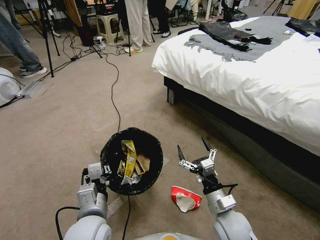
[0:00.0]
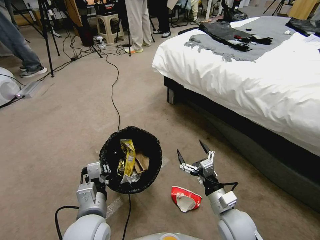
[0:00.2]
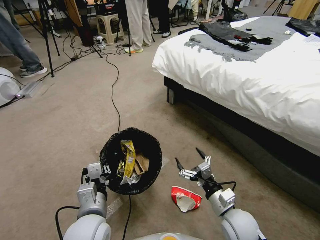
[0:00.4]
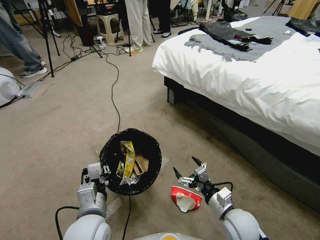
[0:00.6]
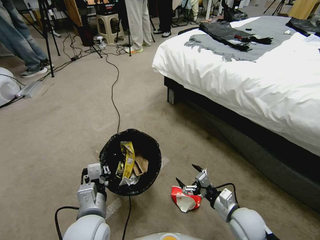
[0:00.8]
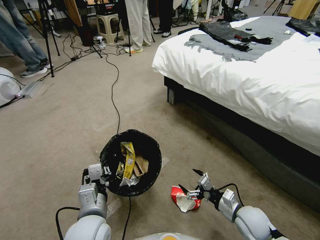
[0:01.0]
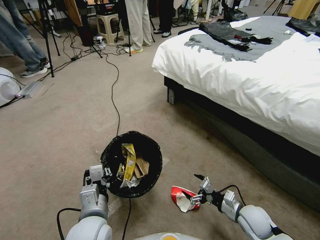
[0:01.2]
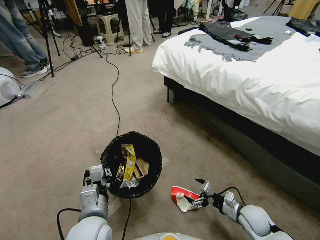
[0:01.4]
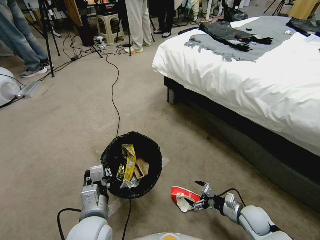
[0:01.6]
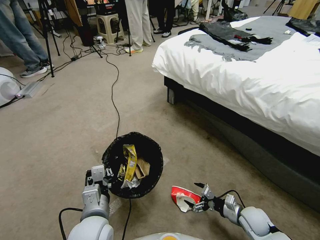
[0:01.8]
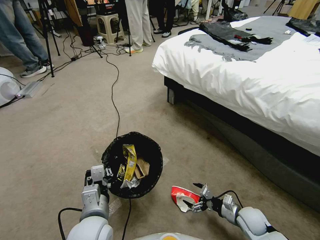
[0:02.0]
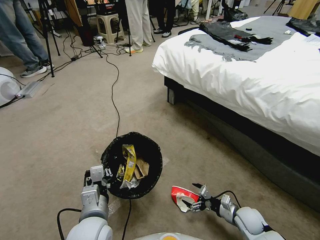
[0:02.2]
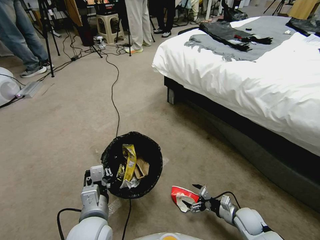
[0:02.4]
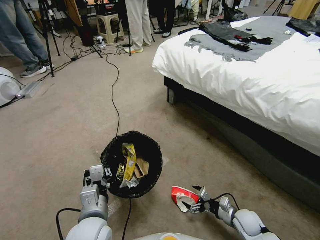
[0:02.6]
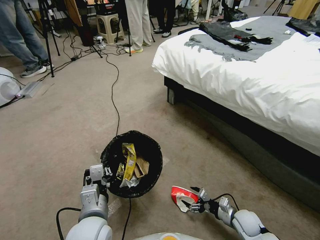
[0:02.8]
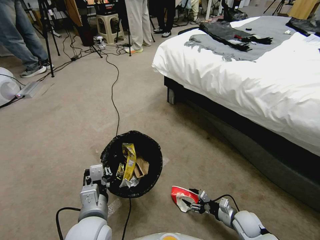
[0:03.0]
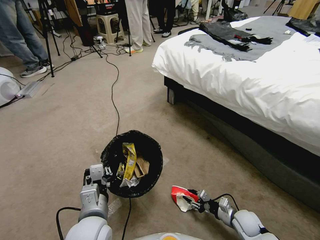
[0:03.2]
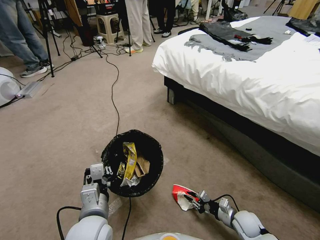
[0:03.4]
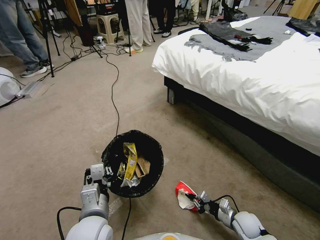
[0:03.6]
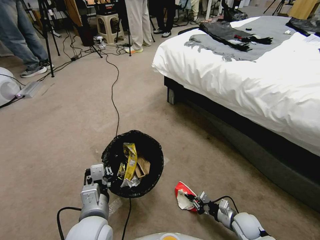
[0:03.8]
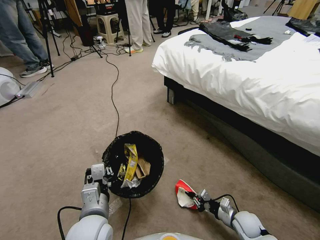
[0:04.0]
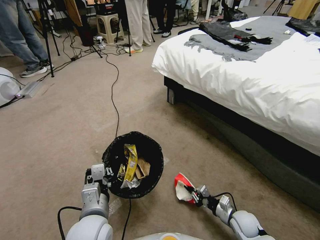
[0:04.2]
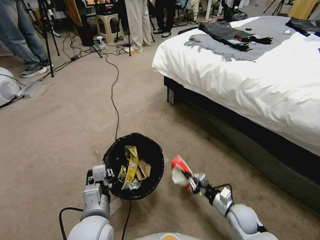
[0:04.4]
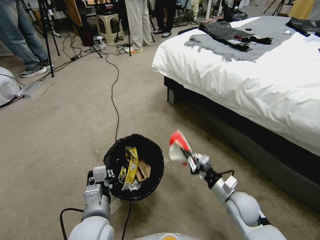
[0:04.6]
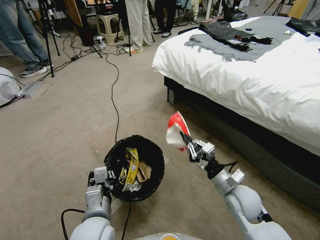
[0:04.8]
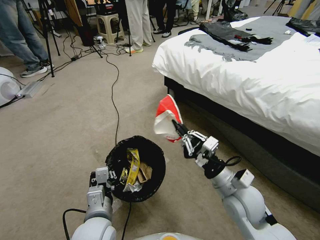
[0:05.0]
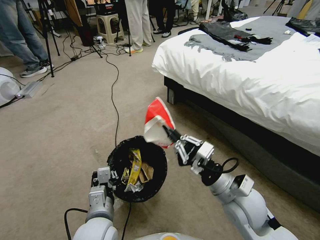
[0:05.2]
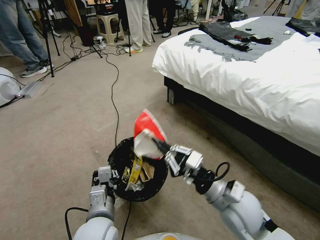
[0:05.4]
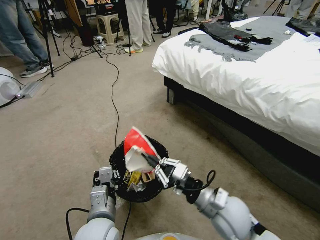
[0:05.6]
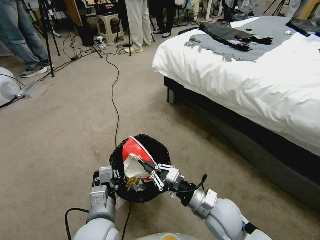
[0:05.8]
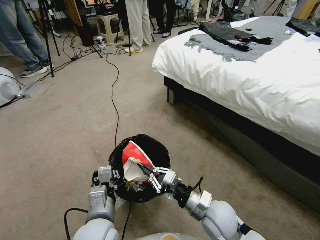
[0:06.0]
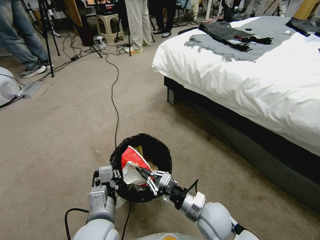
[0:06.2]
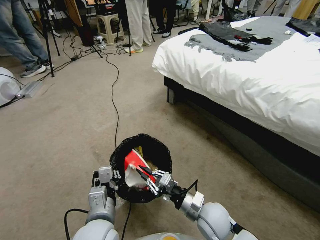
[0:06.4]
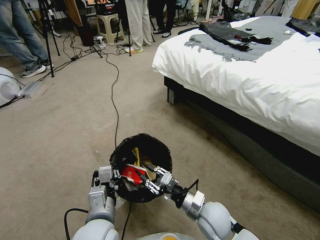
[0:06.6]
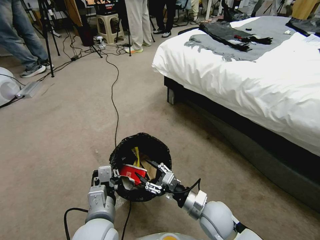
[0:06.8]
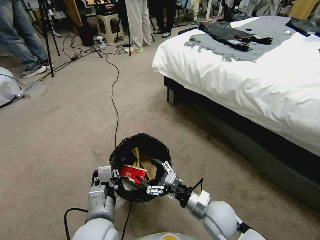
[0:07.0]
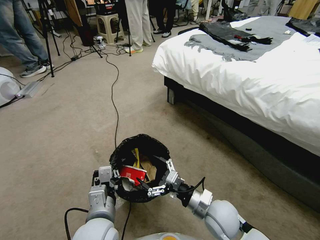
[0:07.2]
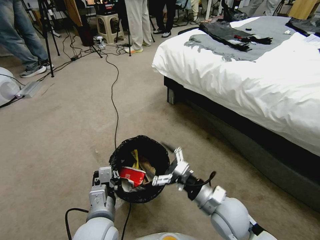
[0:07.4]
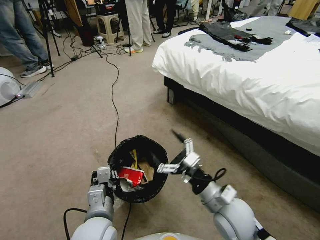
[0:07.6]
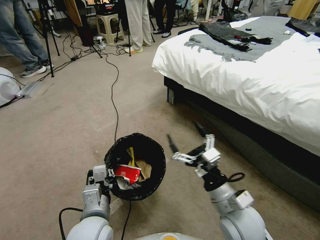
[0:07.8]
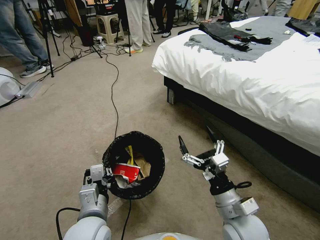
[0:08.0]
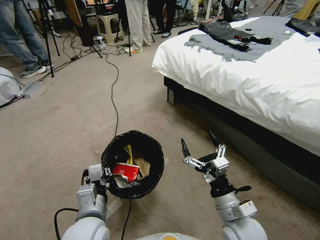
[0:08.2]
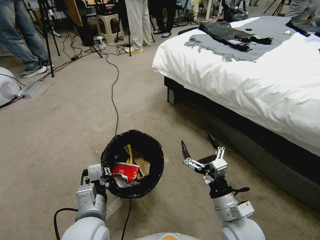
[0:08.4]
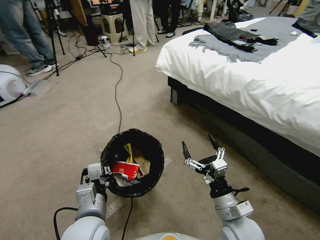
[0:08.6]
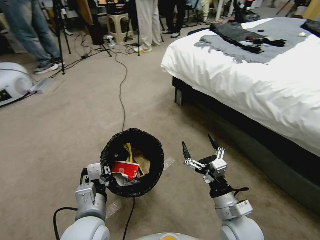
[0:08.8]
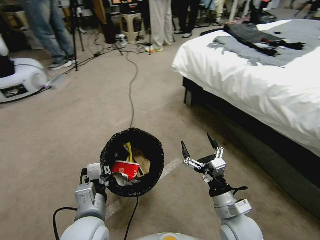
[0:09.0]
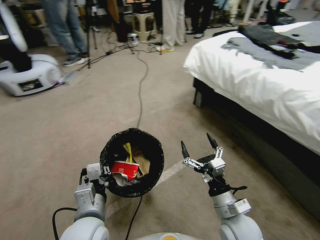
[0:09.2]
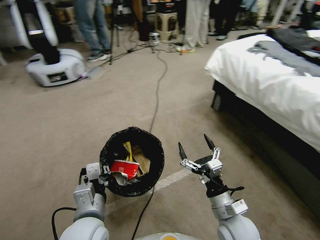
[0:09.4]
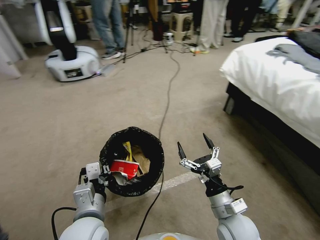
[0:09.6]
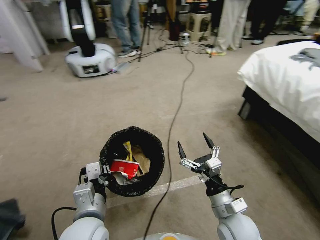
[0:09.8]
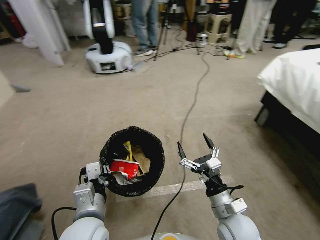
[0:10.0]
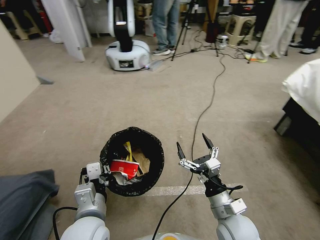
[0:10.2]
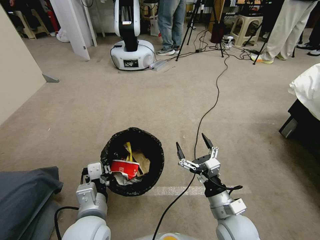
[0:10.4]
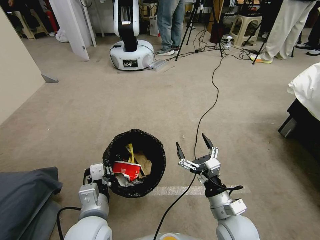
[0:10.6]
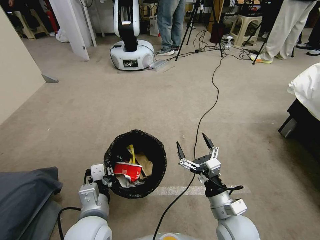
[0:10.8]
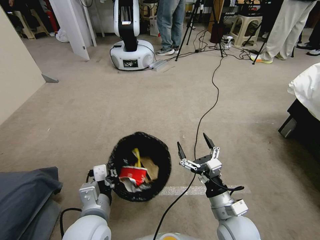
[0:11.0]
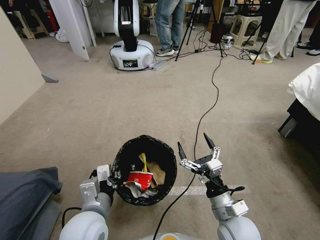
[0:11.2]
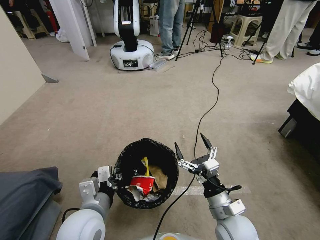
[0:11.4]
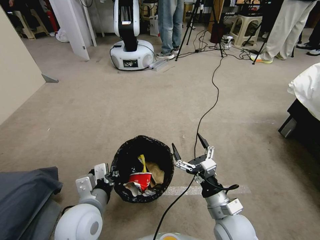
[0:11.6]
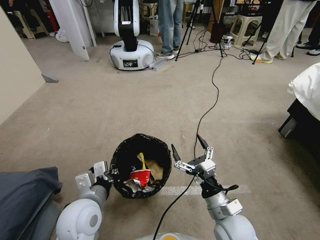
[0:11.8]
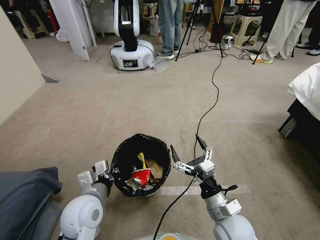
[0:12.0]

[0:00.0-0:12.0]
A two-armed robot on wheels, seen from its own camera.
Task of the whole recording: Pick up the trash bin, then pick up the garbage from the floor and place it into the trash bin.
0:00.0 to 0:01.6: The right gripper moves to the right and downward, some 20 cm.
0:01.6 to 0:03.0: The right gripper goes some 5 cm downward, and closes.
0:03.0 to 0:04.4: The right gripper shifts some 5 cm upward, and closes up.
0:04.4 to 0:06.0: The right gripper moves upward and to the left, about 20 cm.
0:06.0 to 0:07.6: The right gripper heads upward, covering about 5 cm, and opens its fingers.
0:07.6 to 0:09.0: The right gripper shifts by some 5 cm.
0:10.4 to 0:12.0: The left gripper ends up about 5 cm from where it was.

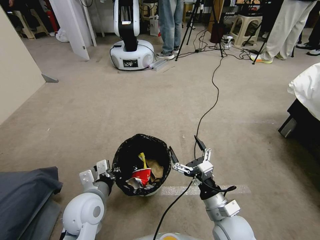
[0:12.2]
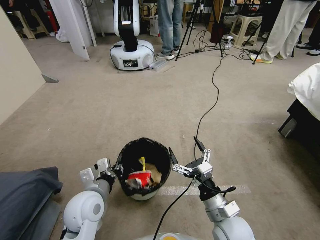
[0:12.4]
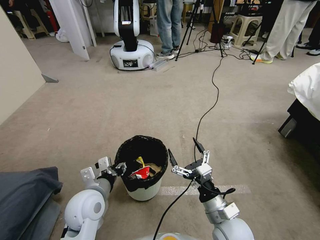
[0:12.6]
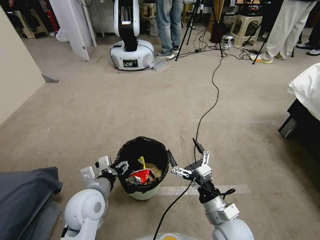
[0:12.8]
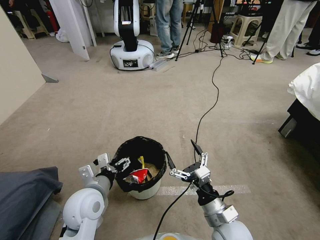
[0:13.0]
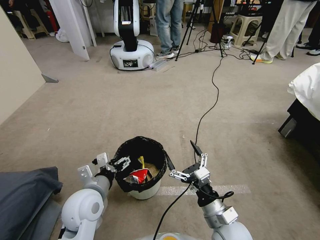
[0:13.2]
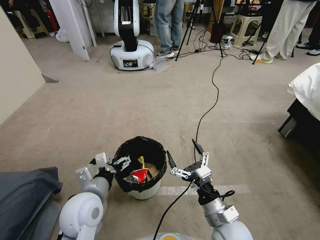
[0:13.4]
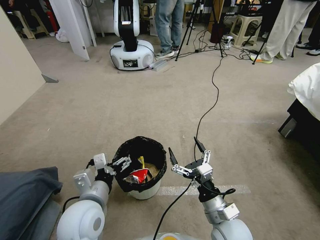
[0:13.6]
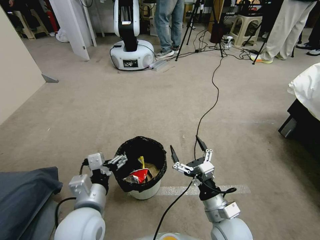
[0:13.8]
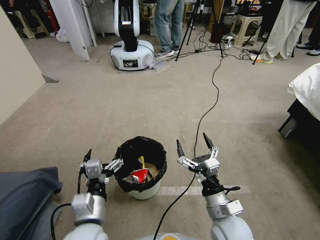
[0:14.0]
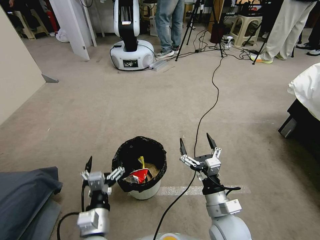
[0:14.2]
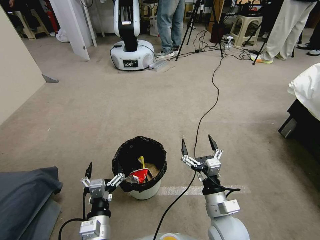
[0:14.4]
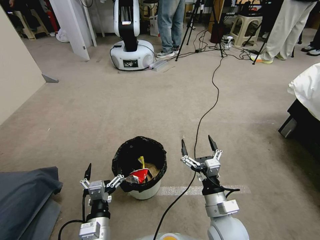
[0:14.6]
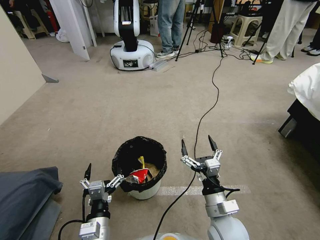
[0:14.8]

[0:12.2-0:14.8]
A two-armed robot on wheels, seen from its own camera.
Task of the whole recording: Pick up the trash bin, then pick up the garbage from the floor and place it into the trash bin.
0:12.2 to 0:13.4: The left gripper opens.
0:13.4 to 0:14.8: The left gripper travels downward and backward by about 15 cm.
